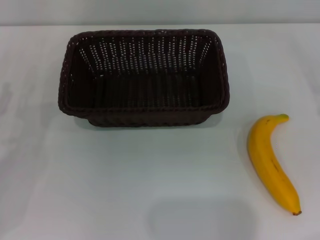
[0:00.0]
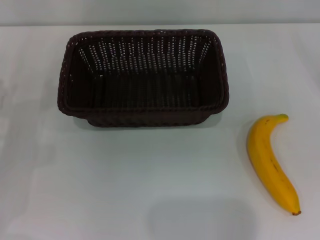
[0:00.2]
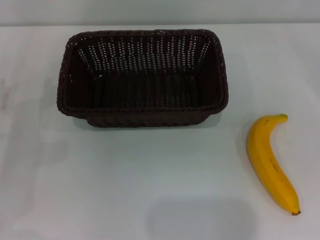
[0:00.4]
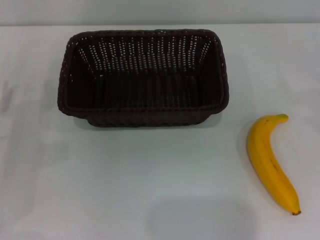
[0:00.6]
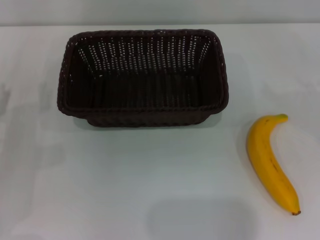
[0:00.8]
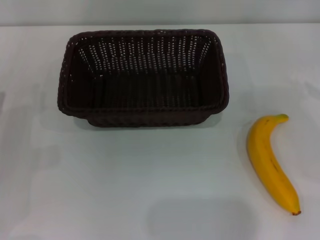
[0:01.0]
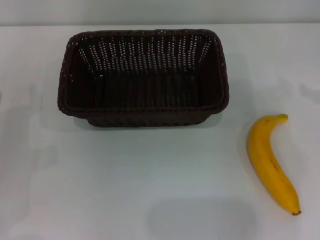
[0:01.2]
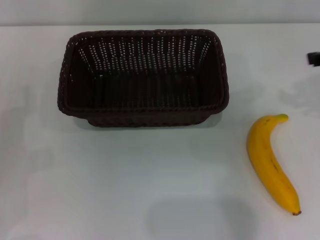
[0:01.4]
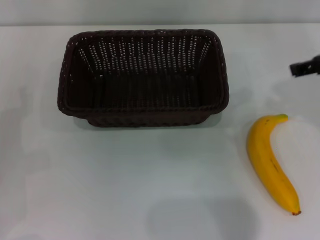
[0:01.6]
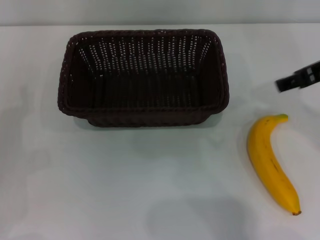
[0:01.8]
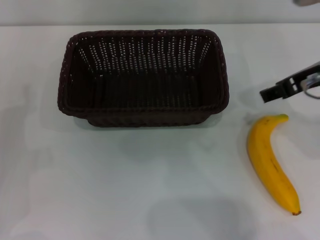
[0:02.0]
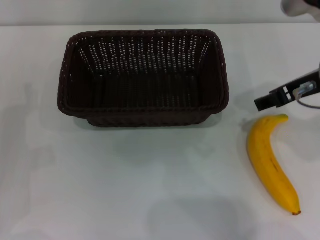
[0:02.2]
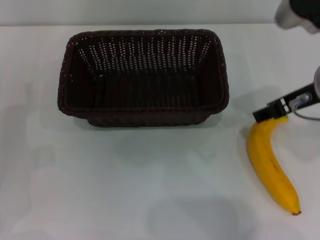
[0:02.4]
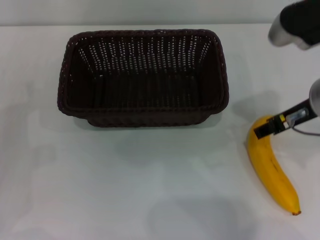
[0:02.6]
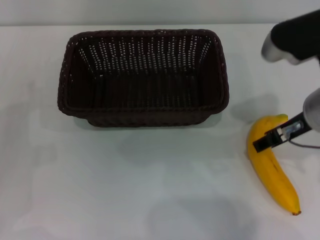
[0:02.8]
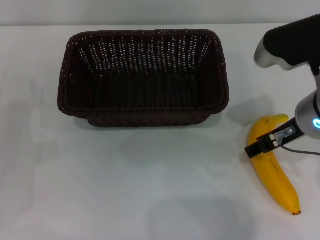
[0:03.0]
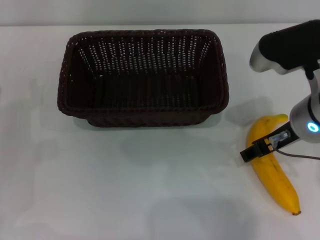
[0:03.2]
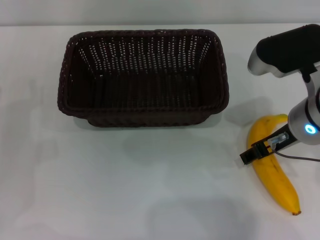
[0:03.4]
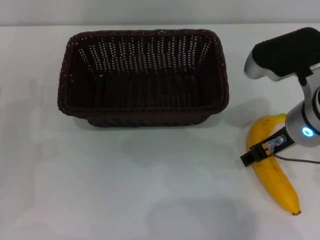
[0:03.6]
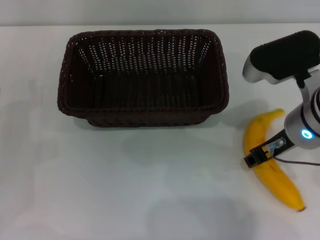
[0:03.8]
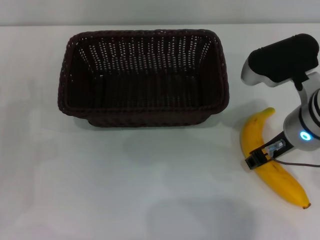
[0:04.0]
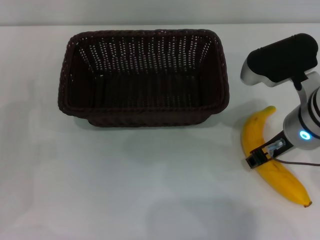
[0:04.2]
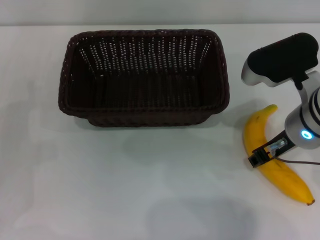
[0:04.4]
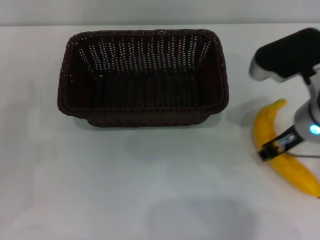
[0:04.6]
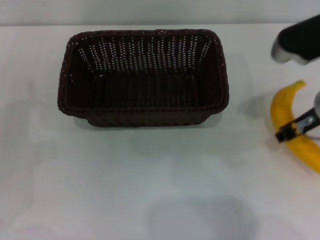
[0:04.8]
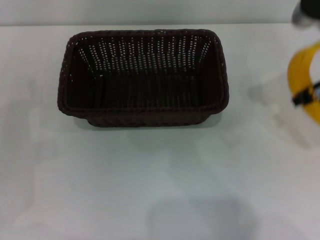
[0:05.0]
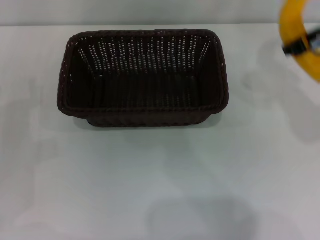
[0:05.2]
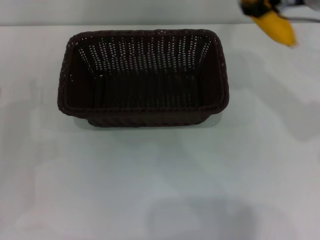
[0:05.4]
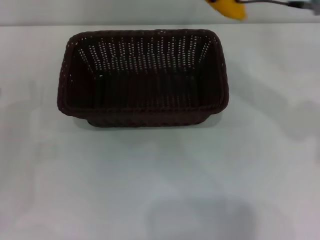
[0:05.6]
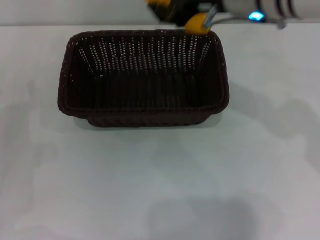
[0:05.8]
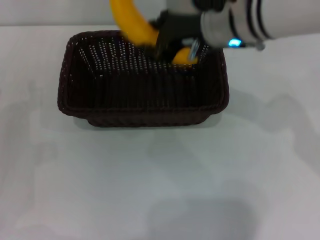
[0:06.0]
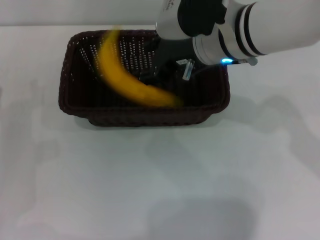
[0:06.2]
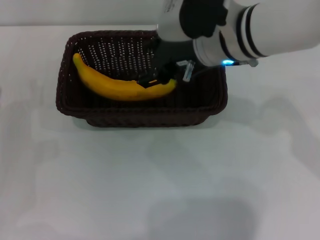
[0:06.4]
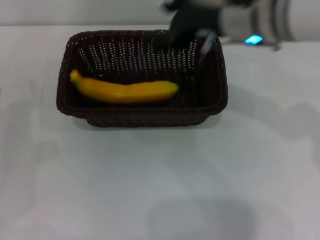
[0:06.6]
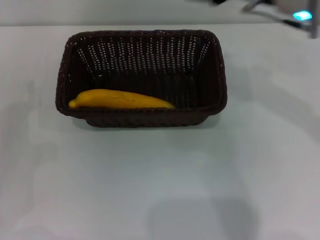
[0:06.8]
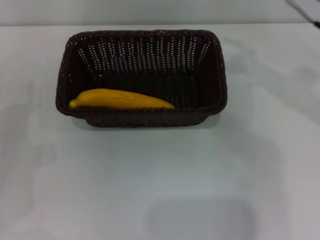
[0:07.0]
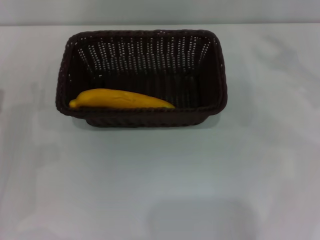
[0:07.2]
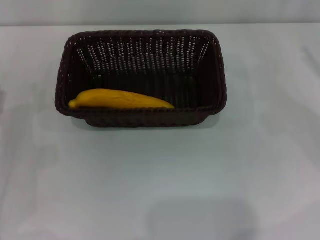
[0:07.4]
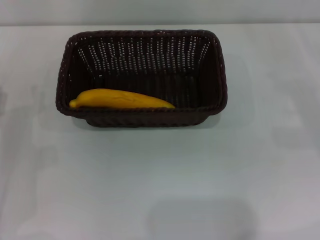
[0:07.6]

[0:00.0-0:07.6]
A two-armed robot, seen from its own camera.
Step, 0:00.0 to 0:04.8: Pick up the banana with the right gripper.
Step, 0:05.2 to 0:06.6: Place the banana into the dark basket with the right gripper.
0:00.0 to 0:01.6: The right gripper heads upward and to the left, covering approximately 25 cm.
0:01.6 to 0:03.0: The right gripper goes approximately 10 cm to the left and downward.
0:03.0 to 0:04.6: The right gripper closes up.
0:04.6 to 0:06.0: The right gripper is displaced to the left, forward and upward by some 15 cm.
0:06.0 to 0:07.6: The right gripper shifts approximately 35 cm to the right and downward, and opens its fingers.
